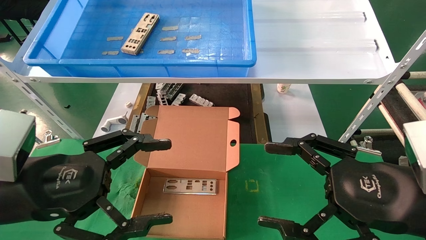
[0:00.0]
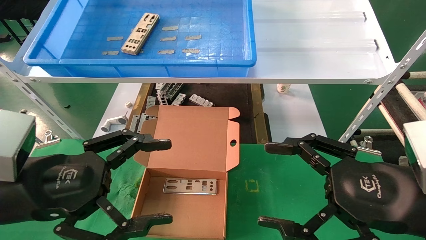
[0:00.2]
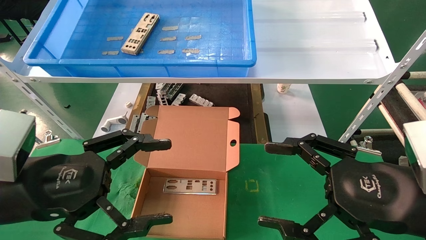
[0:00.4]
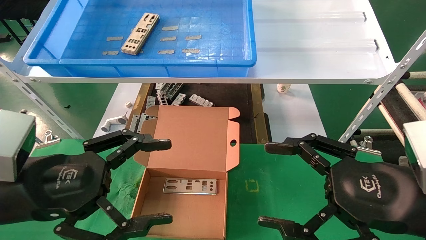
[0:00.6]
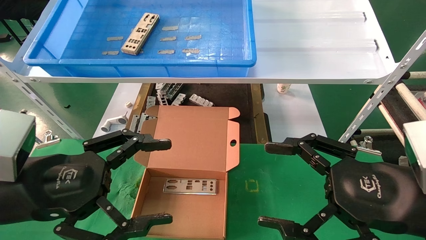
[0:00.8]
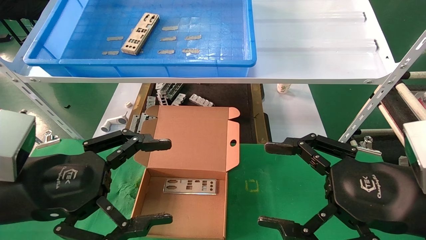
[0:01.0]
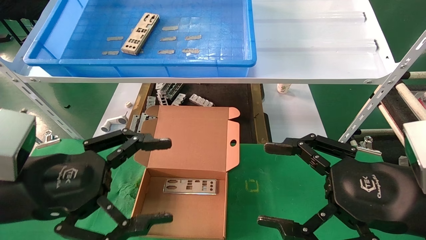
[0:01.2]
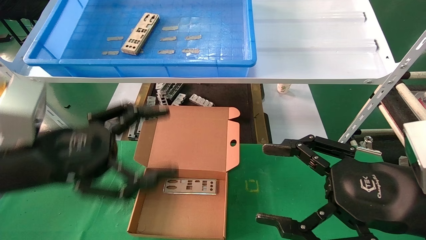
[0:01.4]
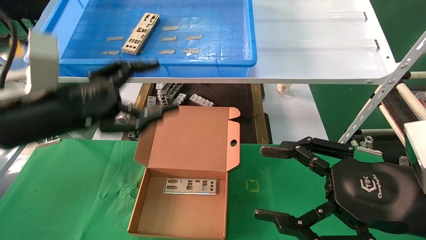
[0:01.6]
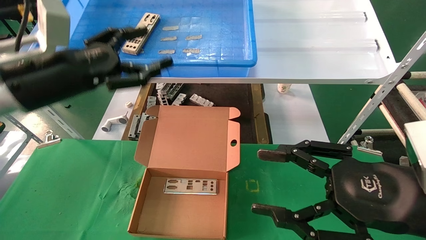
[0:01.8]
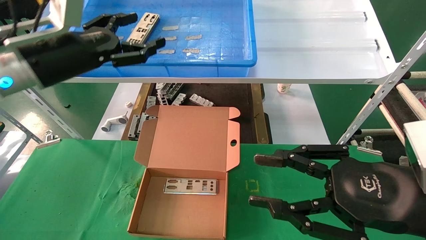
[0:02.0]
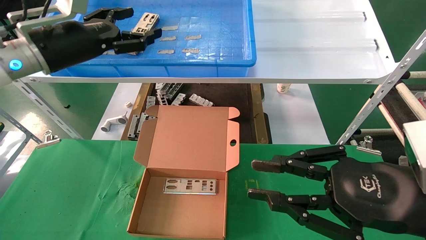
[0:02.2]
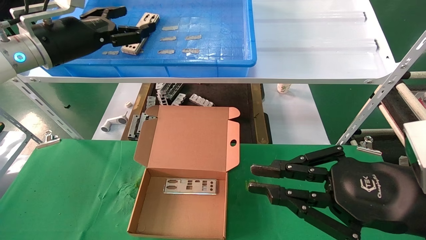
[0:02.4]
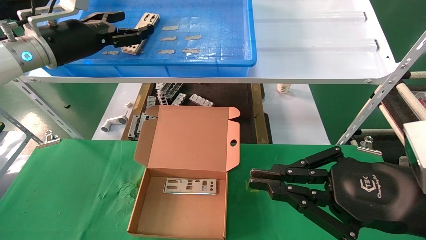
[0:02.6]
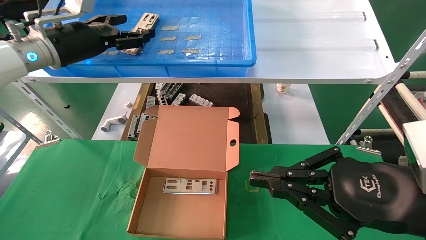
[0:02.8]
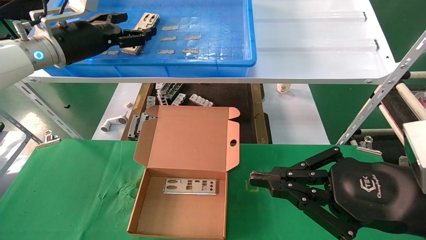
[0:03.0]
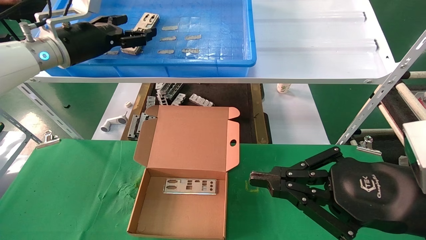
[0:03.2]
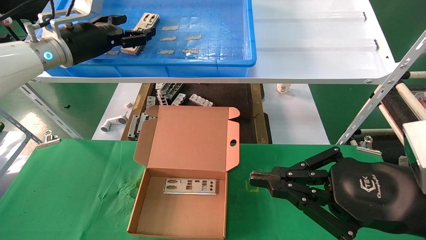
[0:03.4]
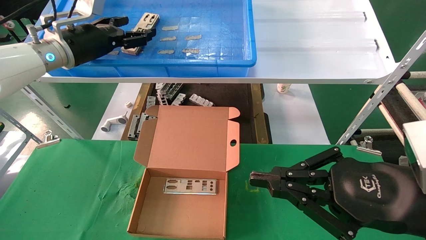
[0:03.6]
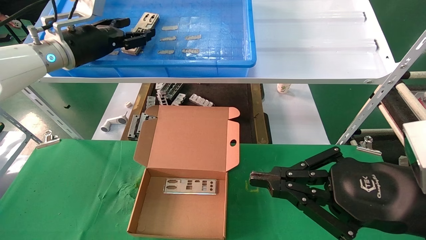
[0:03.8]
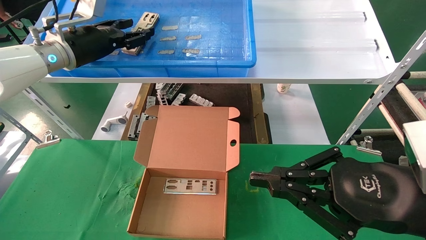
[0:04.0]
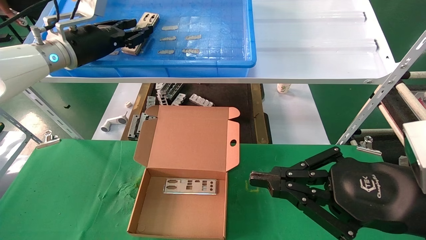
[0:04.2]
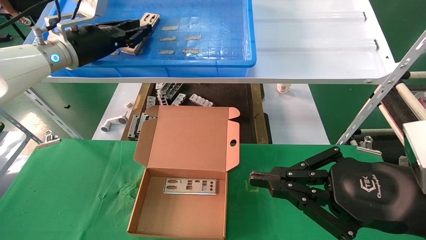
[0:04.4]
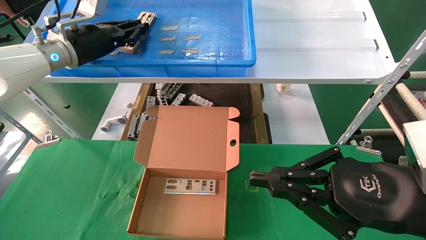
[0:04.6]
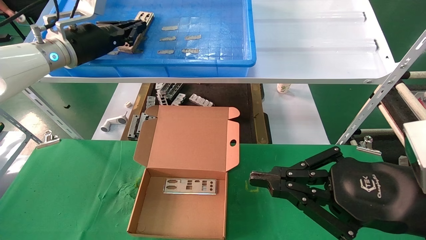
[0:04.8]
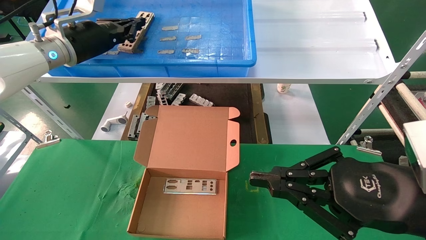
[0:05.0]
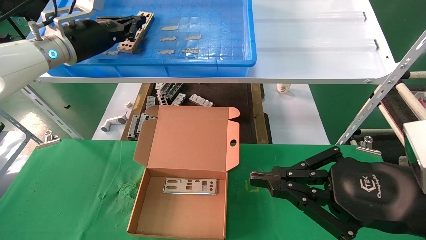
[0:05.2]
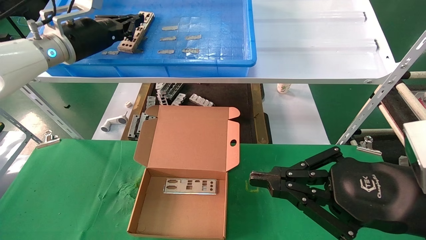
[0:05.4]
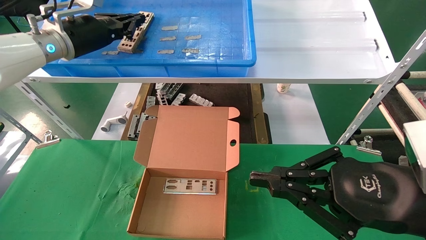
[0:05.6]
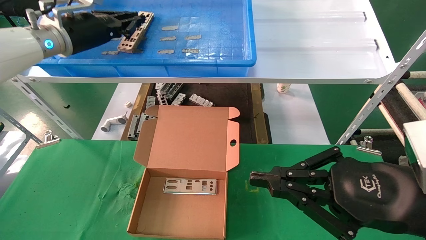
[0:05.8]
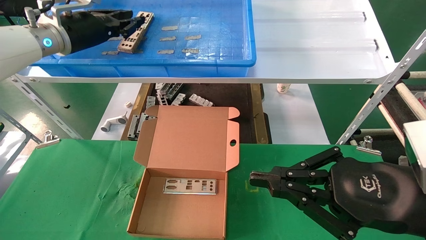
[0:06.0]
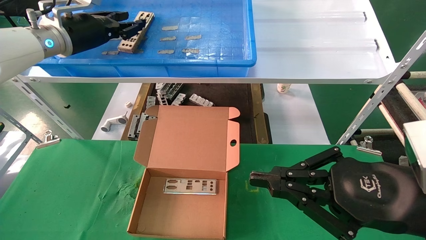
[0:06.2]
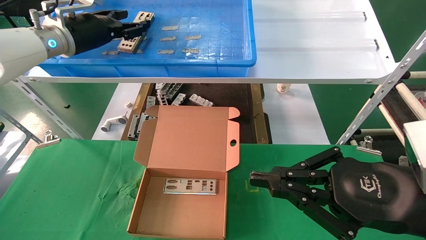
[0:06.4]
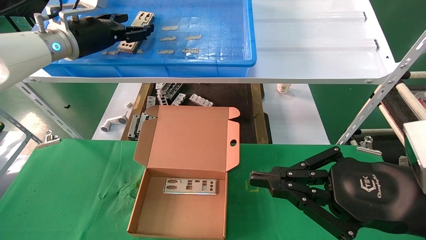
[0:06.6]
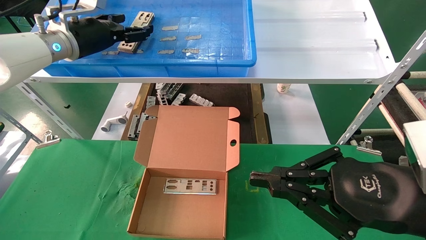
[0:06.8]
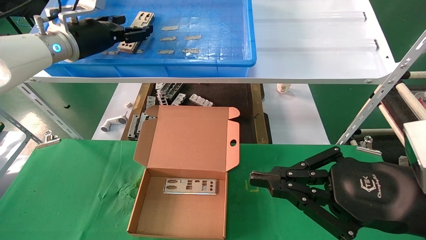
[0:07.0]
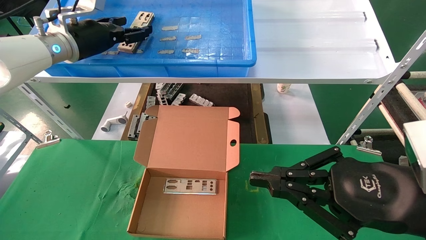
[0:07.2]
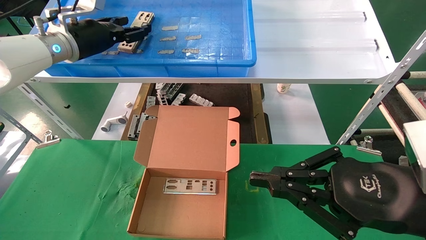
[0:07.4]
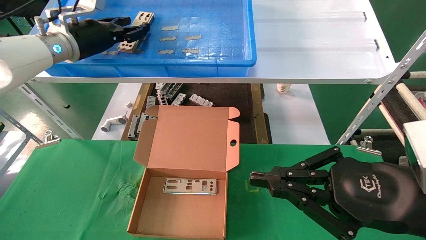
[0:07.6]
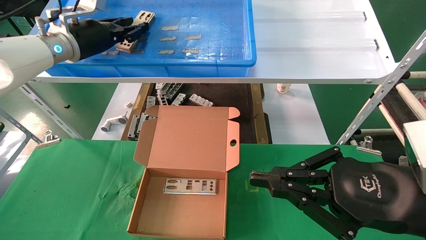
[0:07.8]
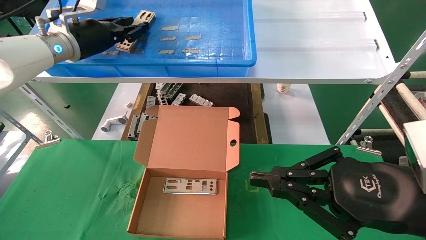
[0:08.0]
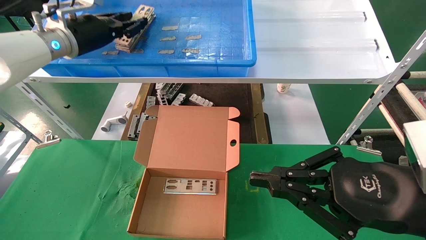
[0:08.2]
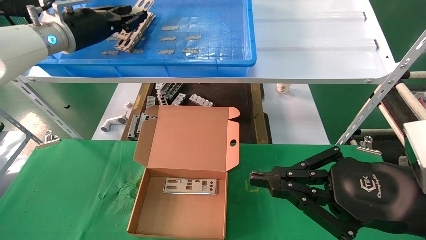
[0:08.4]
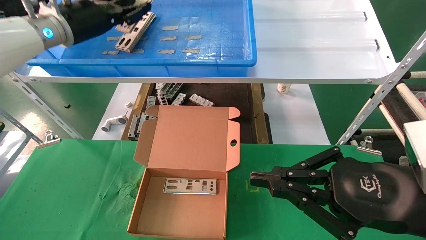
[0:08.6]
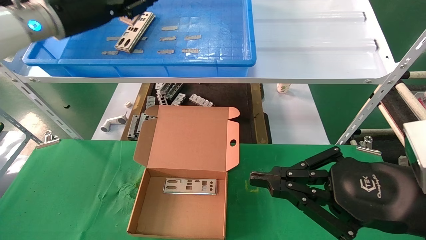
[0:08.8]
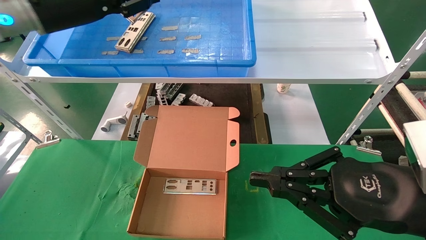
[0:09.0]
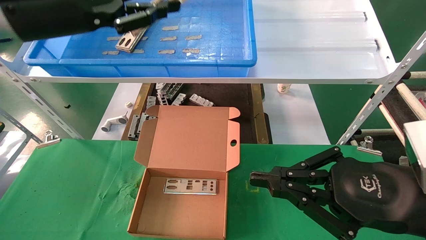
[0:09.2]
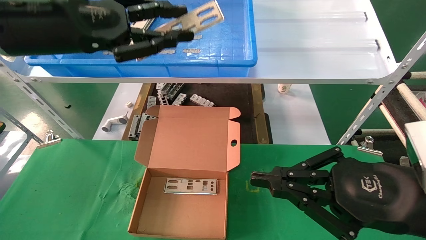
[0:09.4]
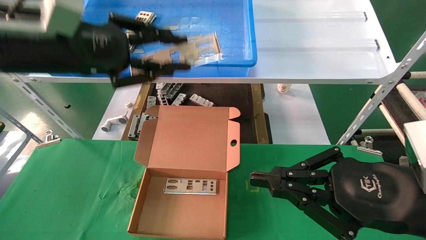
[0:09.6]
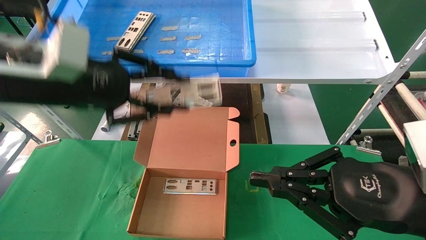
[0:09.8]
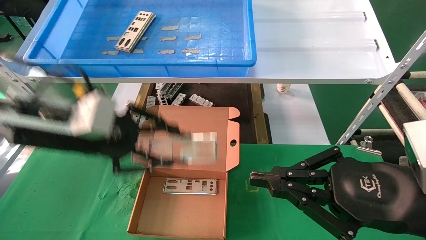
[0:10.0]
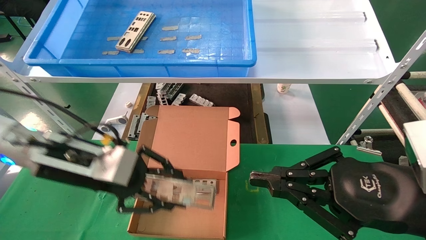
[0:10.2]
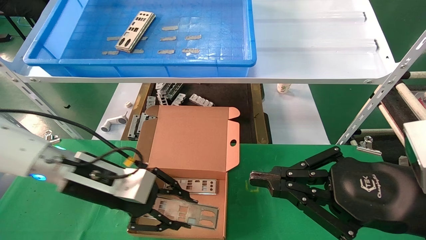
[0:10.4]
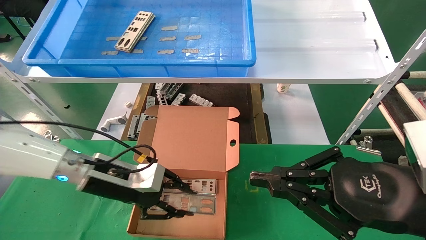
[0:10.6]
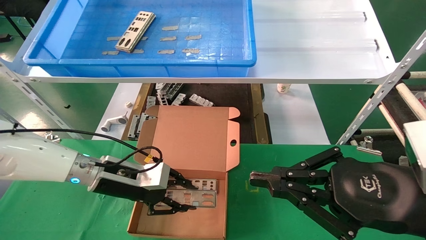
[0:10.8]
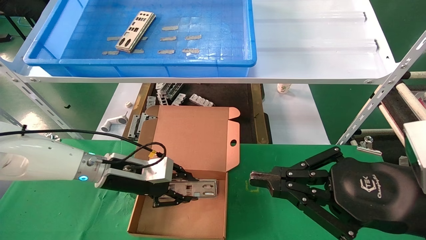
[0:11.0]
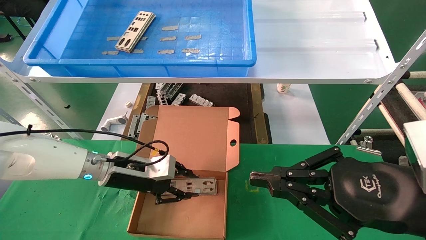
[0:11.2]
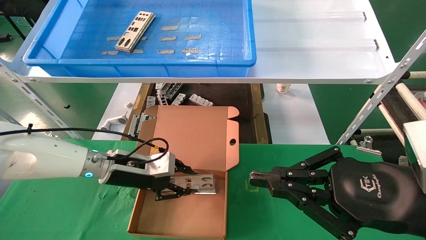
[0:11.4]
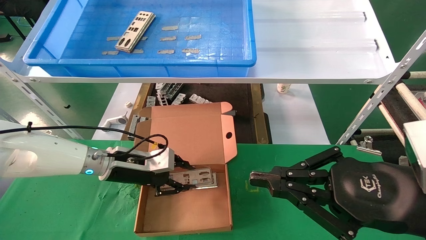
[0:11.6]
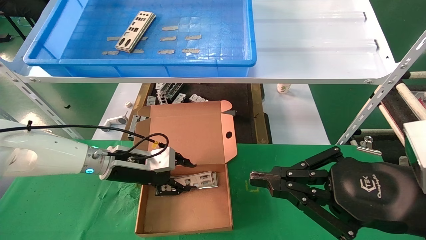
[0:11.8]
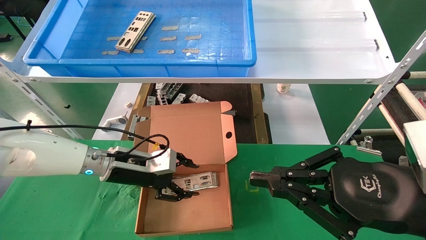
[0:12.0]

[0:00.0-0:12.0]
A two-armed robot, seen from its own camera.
Task of the whole recording: pick up the parts on the tray and put them in the cardboard box.
Step, 0:01.6 to 0:08.2: Pick up the IO bracket from the container box.
Step, 0:08.4 to 0:11.8: Place the IO bracket into the ingredient slot.
0:00.0 to 0:01.6: The left gripper heads forward and upward, covering about 10 cm.
0:01.6 to 0:03.0: The right gripper closes up. Meanwhile the left gripper shifts approximately 20 cm forward and upward.
0:03.0 to 0:04.4: The left gripper closes up.
0:04.4 to 0:06.0: The grippers move only a little.
0:06.0 to 0:07.6: The left gripper opens its fingers.
0:07.6 to 0:09.0: The left gripper is displaced backward by roughly 10 cm.
0:09.0 to 0:10.4: The left gripper is displaced downward by roughly 25 cm.
0:10.4 to 0:12.0: The left gripper moves forward, some 5 cm.

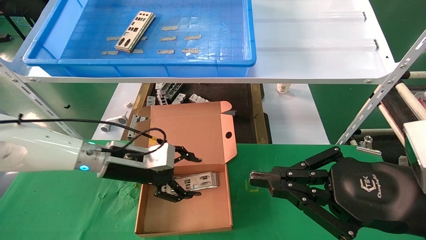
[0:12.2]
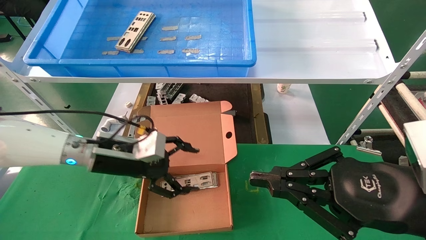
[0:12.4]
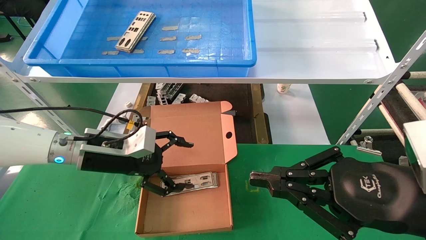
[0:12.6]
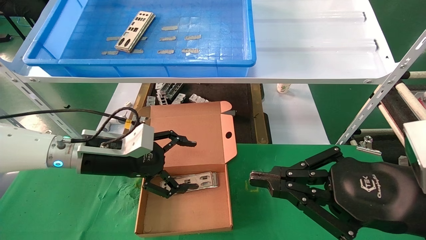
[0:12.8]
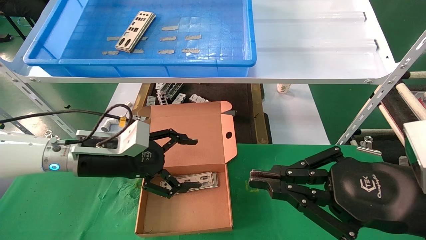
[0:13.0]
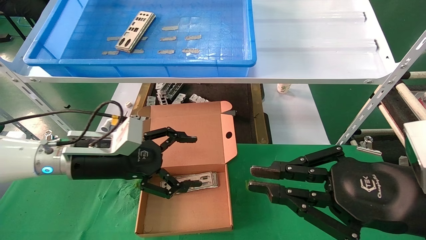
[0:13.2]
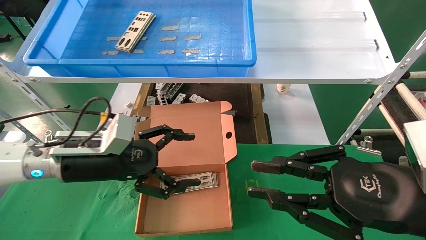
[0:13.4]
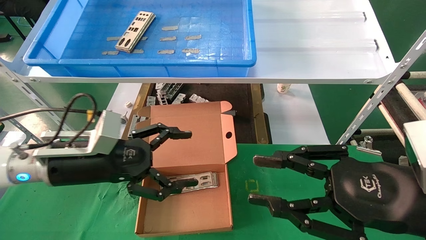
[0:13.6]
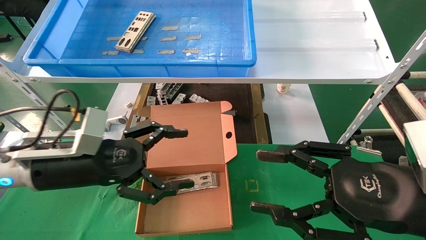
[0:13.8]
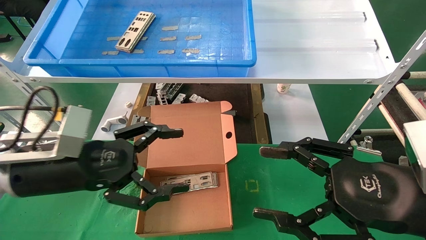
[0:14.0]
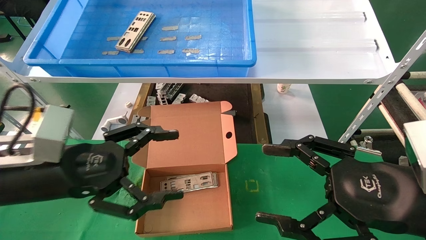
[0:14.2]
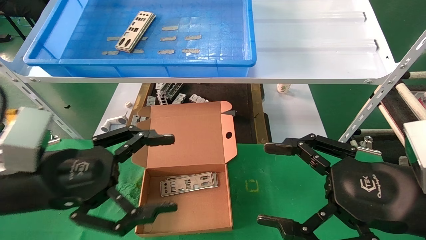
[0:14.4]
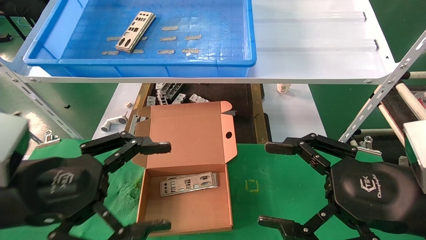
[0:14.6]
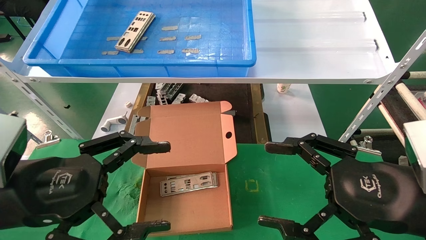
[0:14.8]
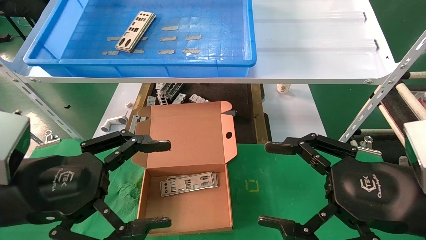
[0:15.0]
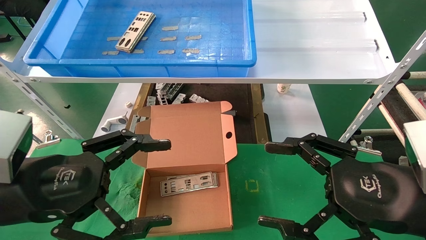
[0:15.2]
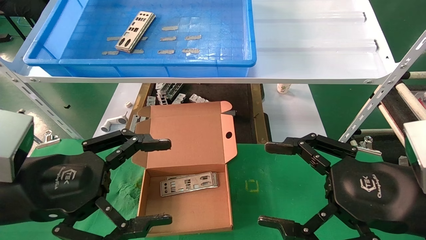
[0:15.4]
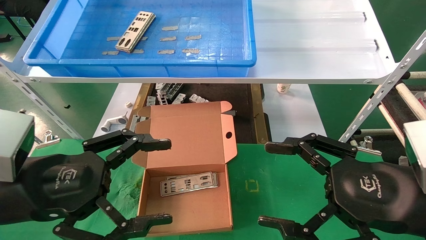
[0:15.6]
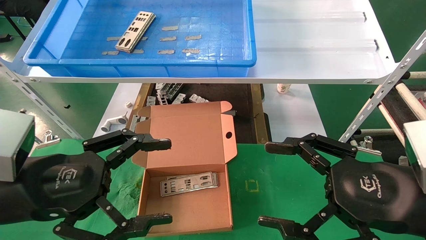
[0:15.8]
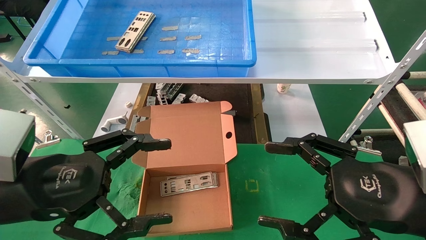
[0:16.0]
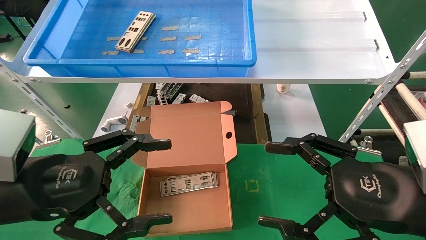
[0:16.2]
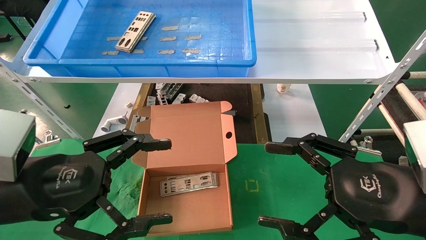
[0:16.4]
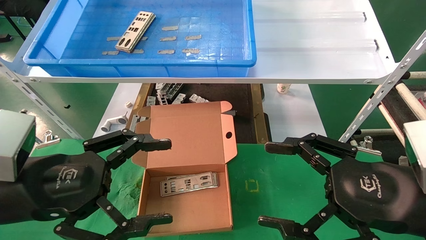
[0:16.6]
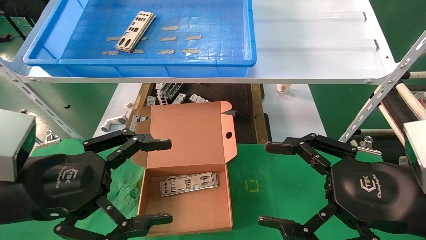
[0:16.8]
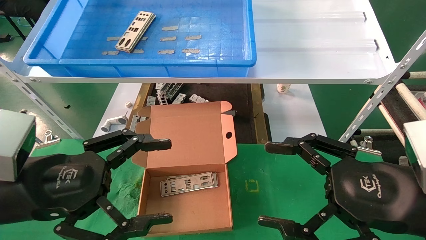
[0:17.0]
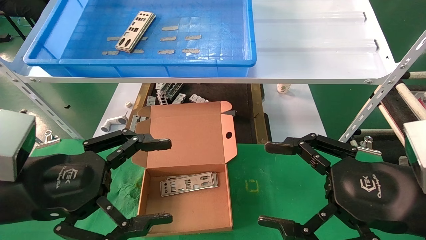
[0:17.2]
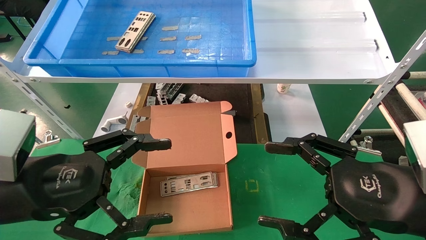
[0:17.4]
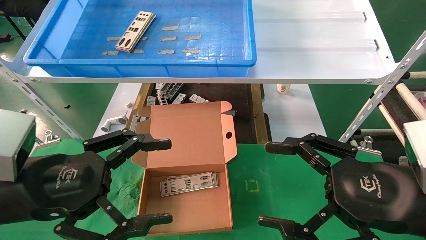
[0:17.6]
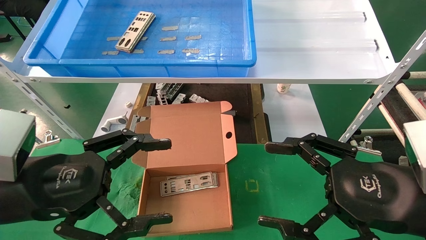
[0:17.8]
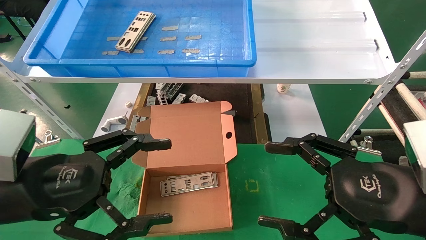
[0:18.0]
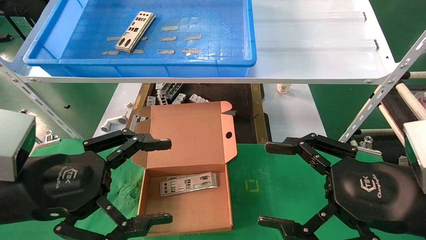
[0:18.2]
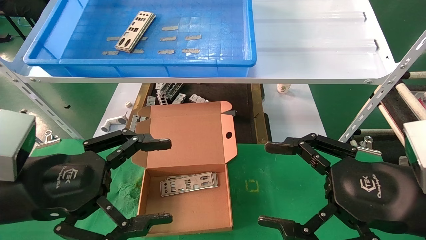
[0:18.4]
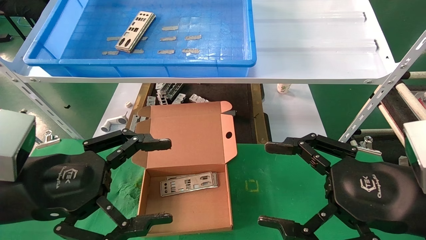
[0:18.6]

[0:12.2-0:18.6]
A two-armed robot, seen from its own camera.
Task of the whole recording: pick up the parts on the tray and put them in the cardboard box.
0:12.2 to 0:13.8: The left gripper goes about 10 cm backward; the right gripper opens its fingers.
0:13.8 to 0:15.4: The left gripper shifts approximately 10 cm backward; the right gripper opens.
0:15.4 to 0:18.6: Both grippers stay put.
